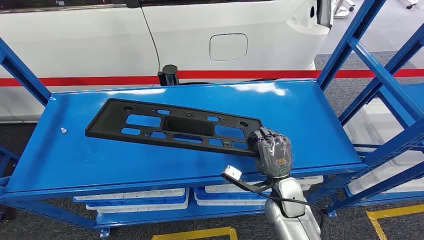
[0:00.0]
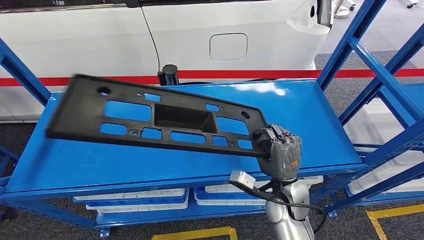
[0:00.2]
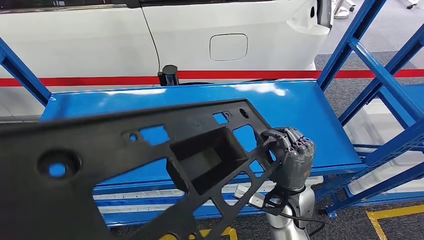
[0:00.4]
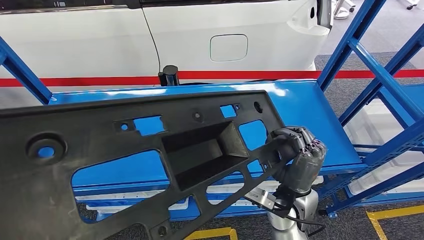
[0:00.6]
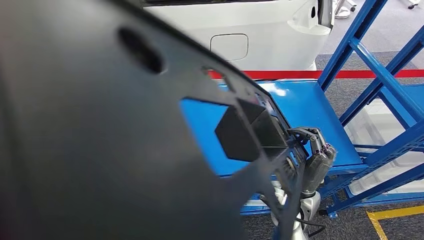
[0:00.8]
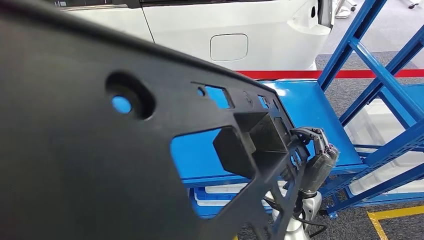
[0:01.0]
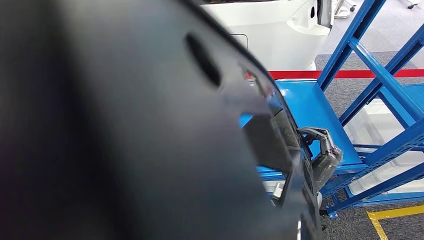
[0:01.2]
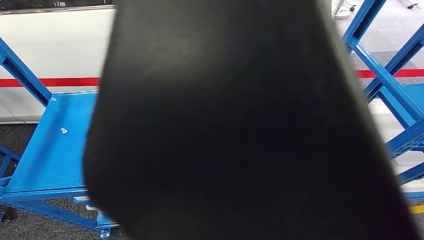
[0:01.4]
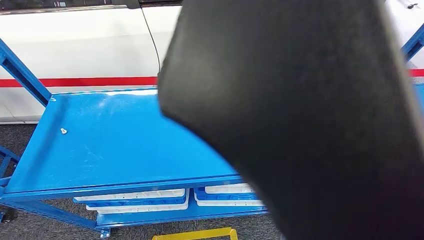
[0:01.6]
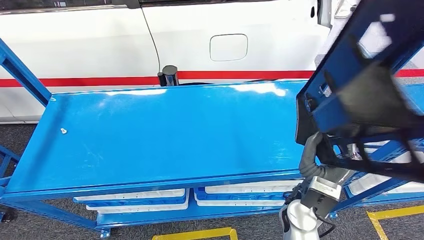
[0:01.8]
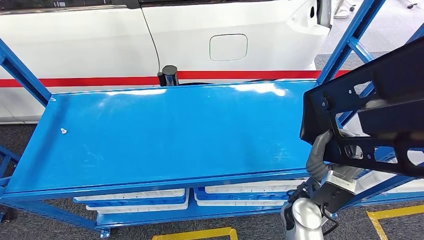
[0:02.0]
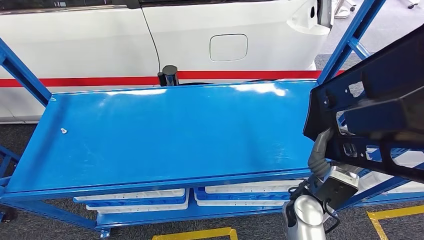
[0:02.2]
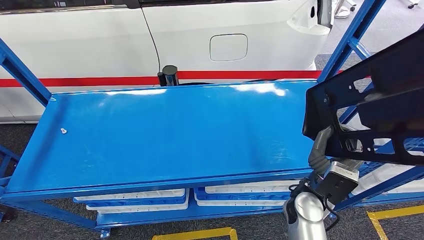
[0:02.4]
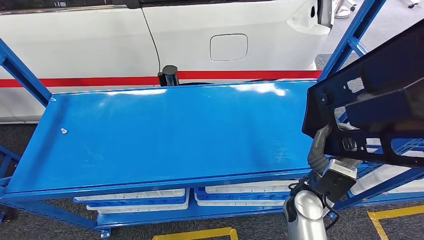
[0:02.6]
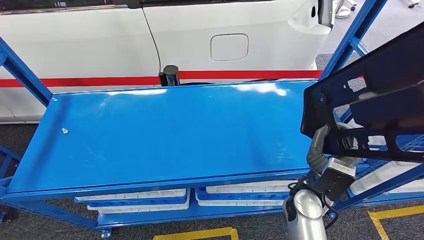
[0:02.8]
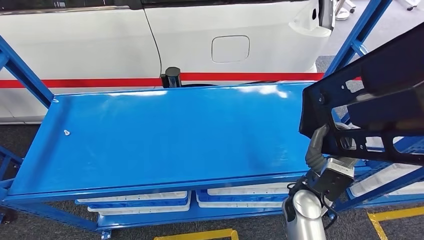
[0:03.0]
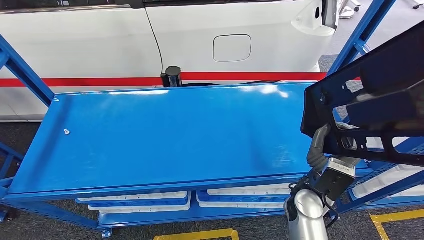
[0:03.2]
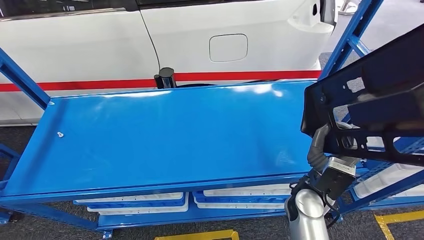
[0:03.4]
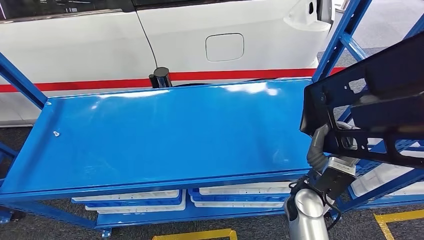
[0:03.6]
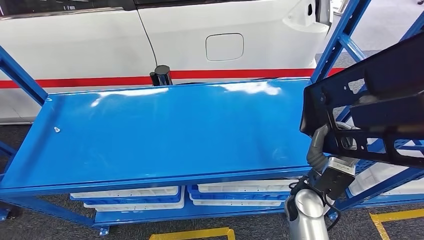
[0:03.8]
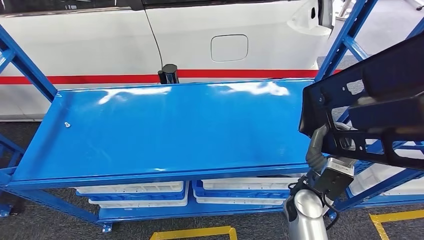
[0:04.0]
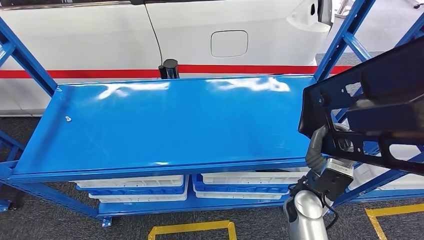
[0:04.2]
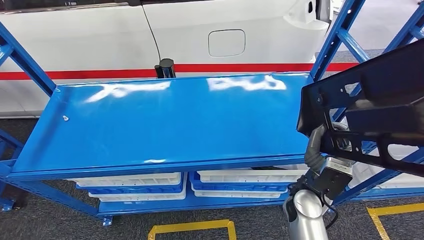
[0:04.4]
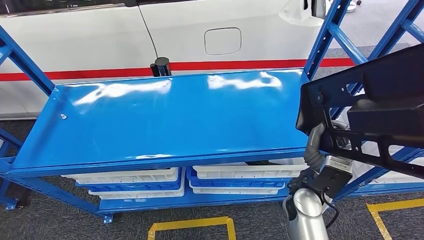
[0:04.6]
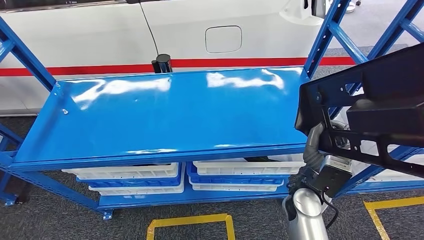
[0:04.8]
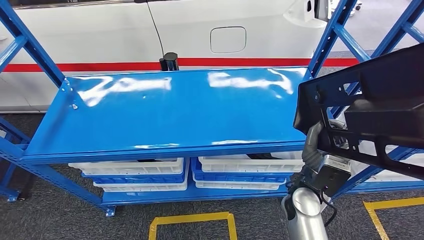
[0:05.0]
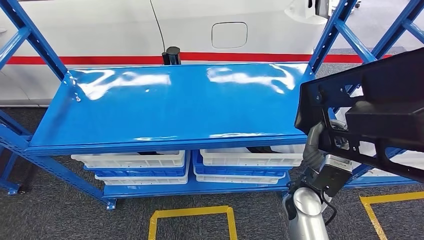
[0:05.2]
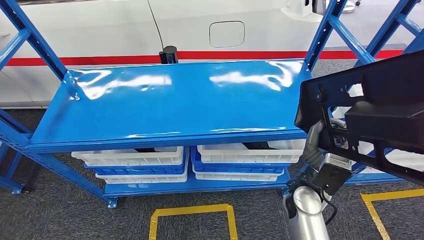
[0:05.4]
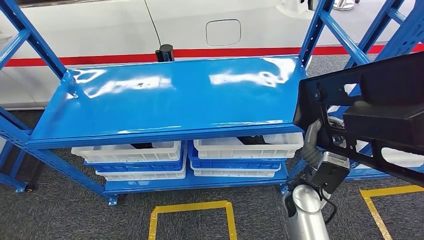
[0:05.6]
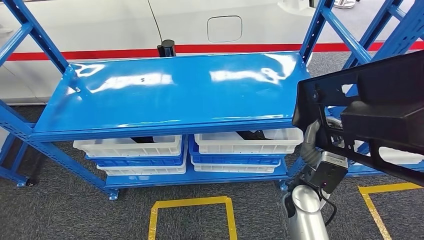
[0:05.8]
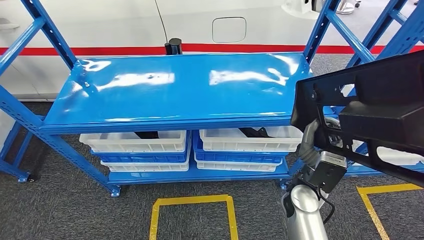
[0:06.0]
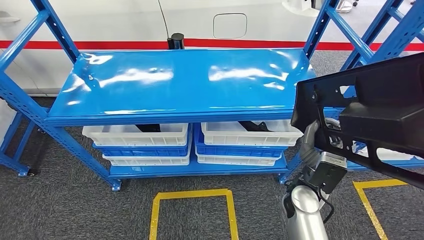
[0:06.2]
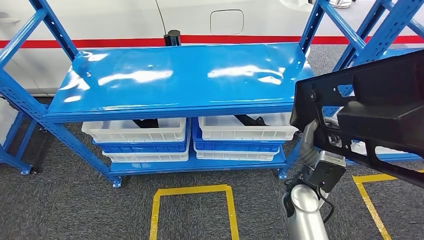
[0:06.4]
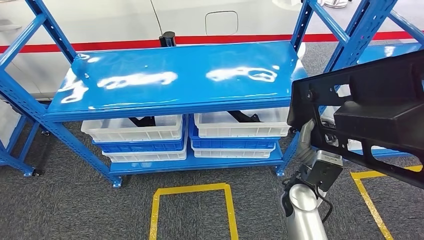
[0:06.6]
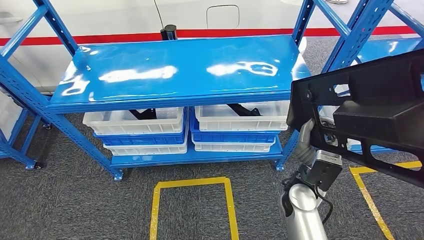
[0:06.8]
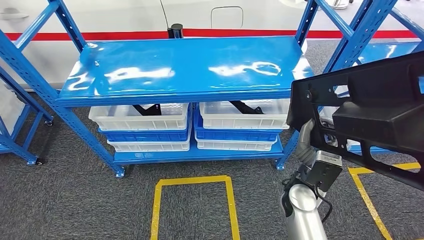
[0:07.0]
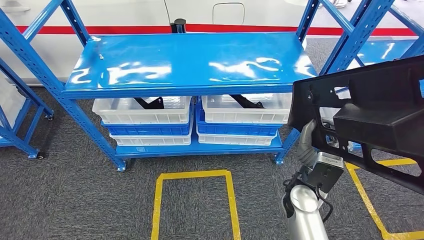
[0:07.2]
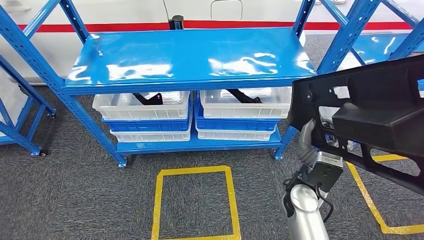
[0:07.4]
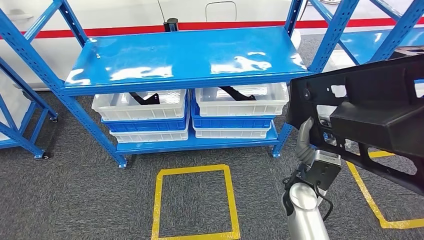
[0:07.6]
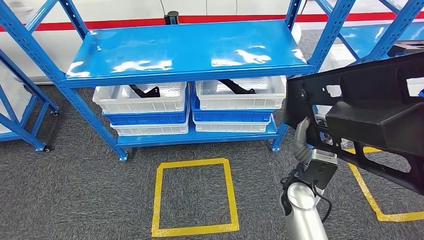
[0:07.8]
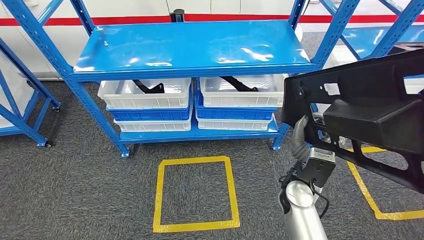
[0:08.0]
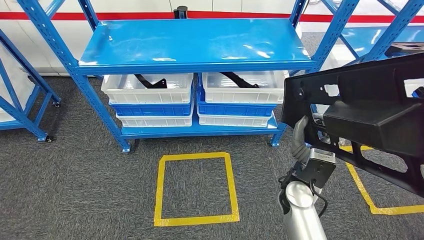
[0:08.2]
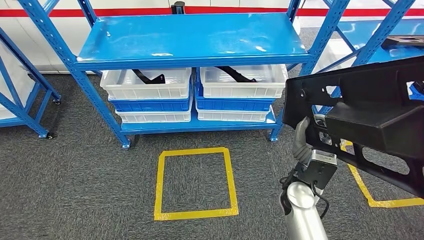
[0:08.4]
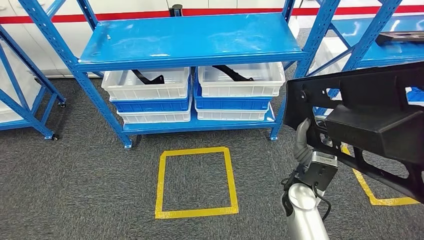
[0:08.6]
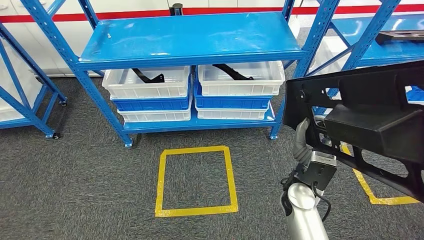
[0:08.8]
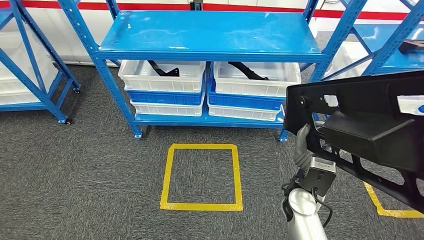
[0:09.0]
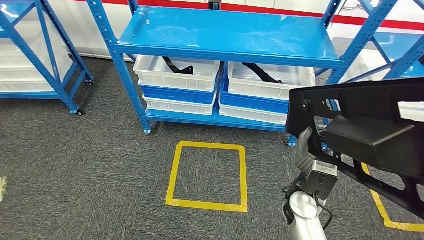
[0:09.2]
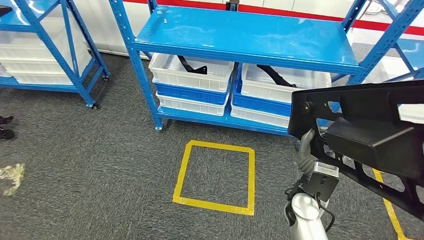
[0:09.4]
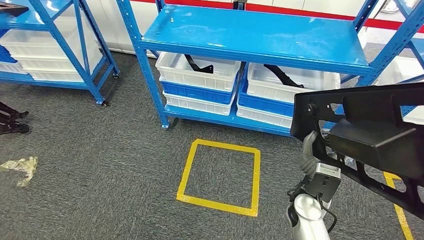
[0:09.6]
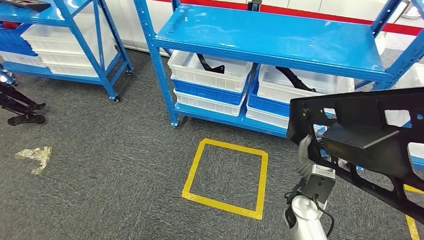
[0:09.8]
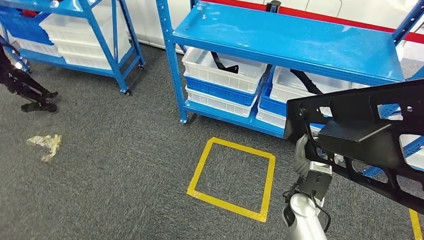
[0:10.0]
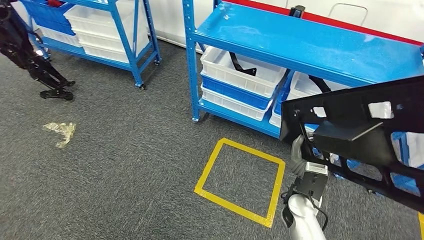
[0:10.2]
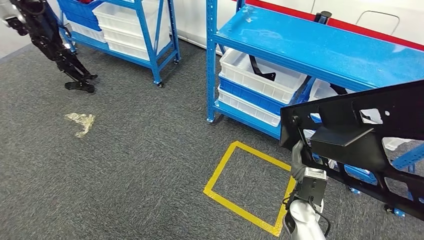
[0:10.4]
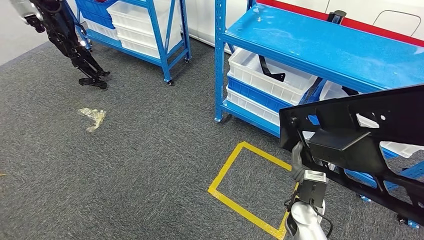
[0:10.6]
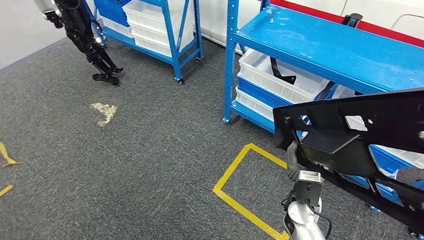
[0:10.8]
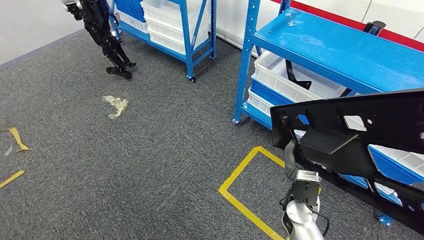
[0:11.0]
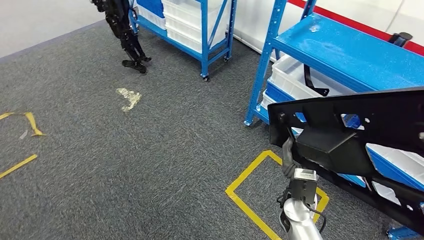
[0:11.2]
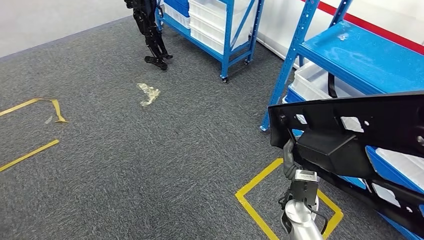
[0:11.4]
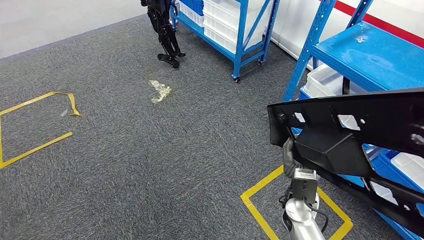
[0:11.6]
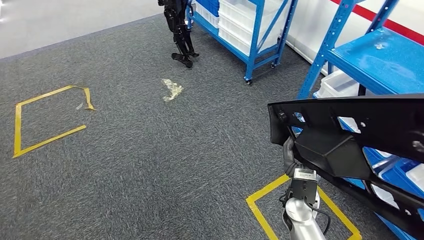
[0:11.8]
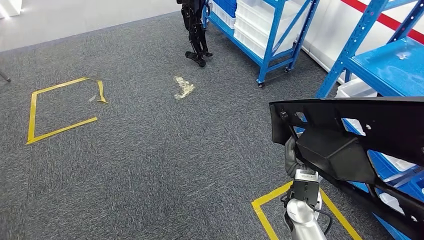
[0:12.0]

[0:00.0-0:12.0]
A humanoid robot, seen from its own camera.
Step, 0:00.0 to 0:06.0: Pick up the large material from the shelf.

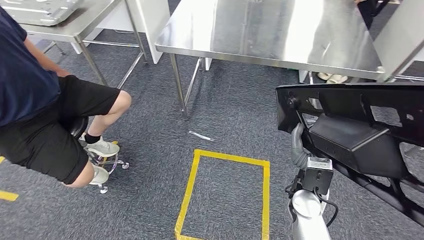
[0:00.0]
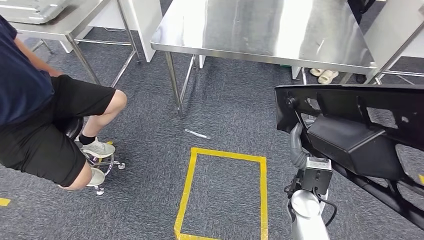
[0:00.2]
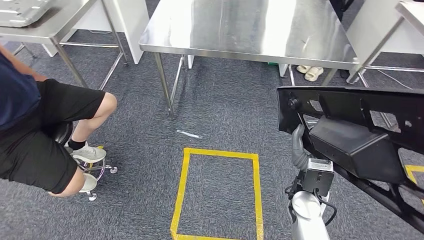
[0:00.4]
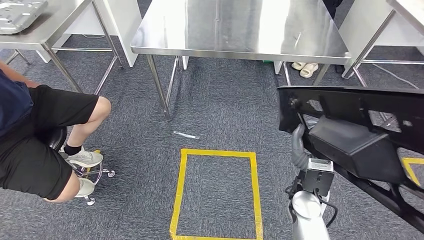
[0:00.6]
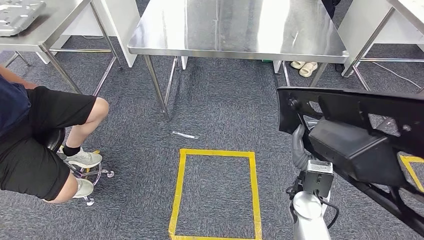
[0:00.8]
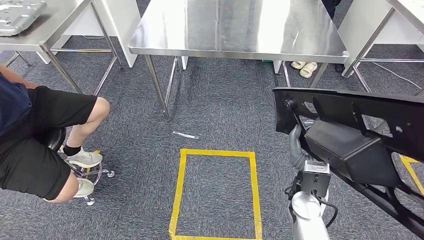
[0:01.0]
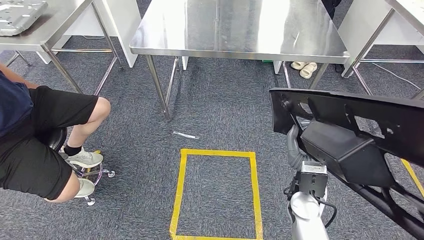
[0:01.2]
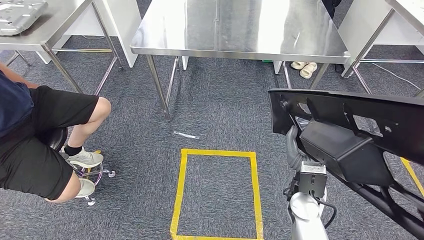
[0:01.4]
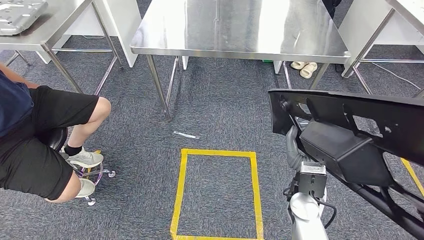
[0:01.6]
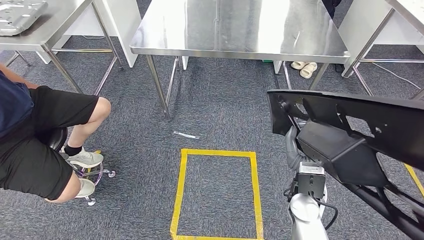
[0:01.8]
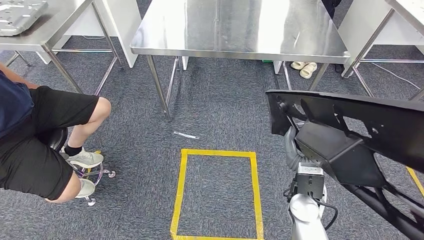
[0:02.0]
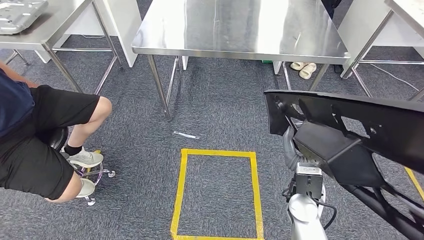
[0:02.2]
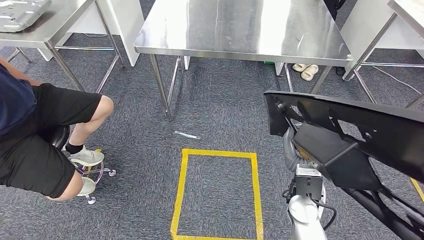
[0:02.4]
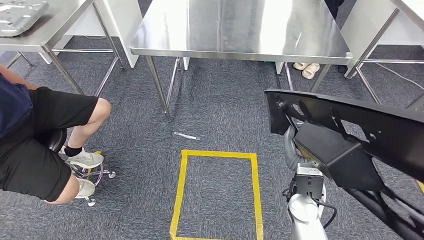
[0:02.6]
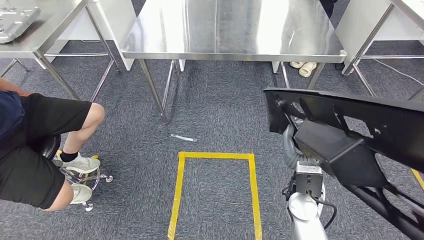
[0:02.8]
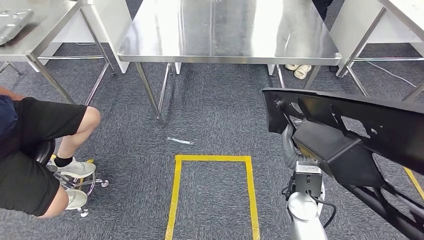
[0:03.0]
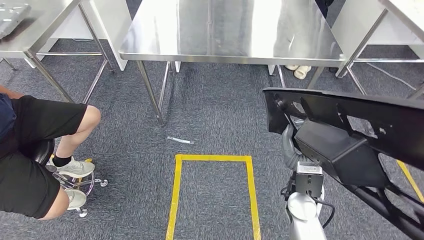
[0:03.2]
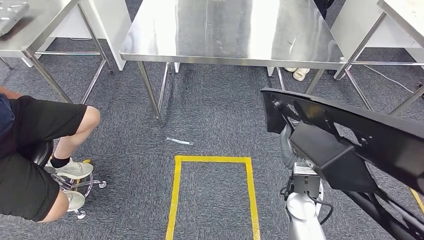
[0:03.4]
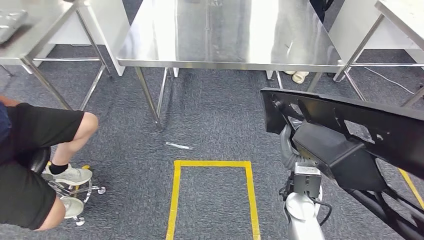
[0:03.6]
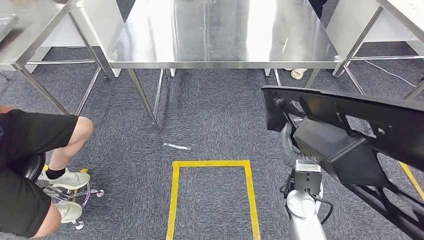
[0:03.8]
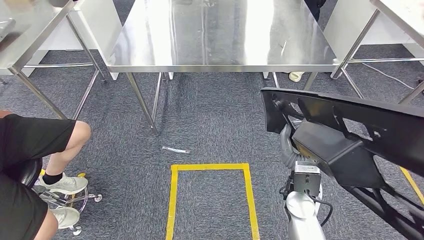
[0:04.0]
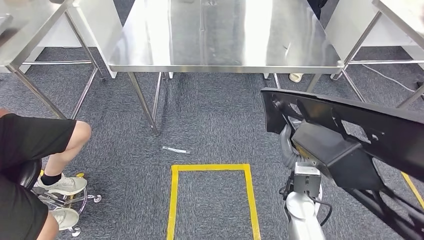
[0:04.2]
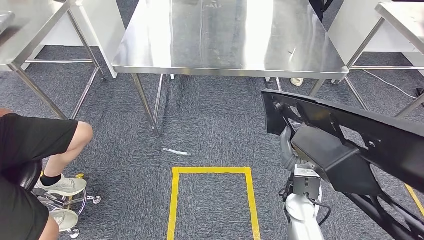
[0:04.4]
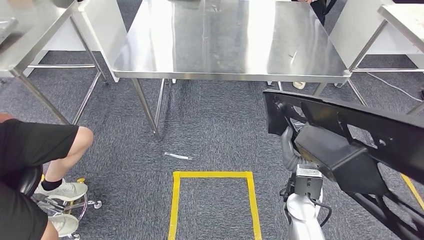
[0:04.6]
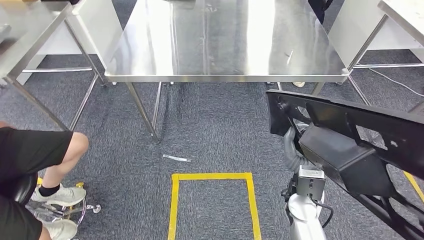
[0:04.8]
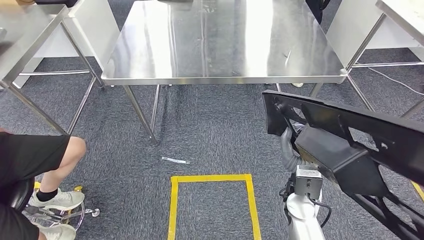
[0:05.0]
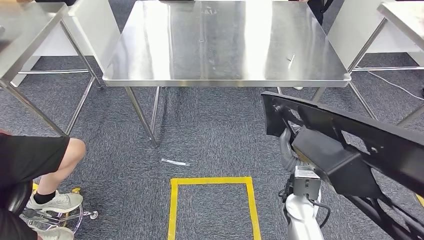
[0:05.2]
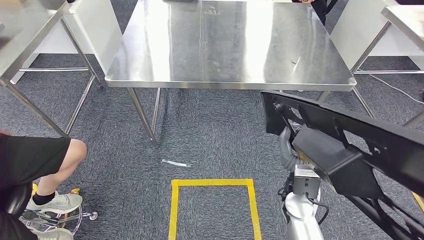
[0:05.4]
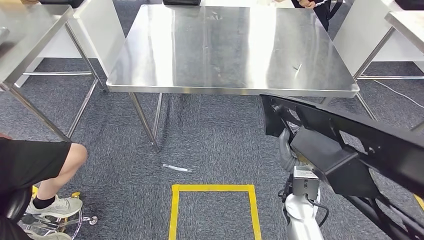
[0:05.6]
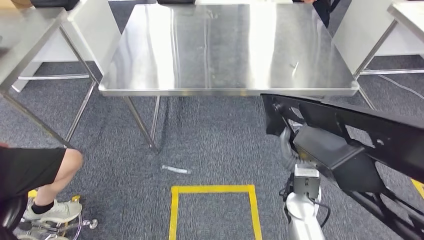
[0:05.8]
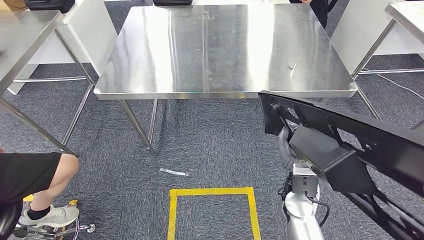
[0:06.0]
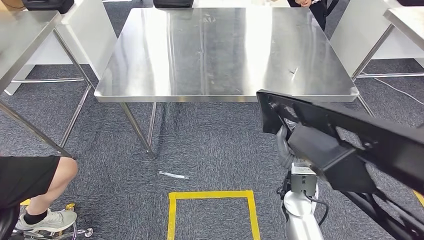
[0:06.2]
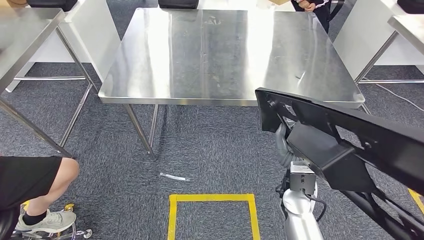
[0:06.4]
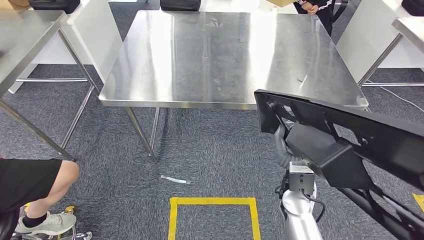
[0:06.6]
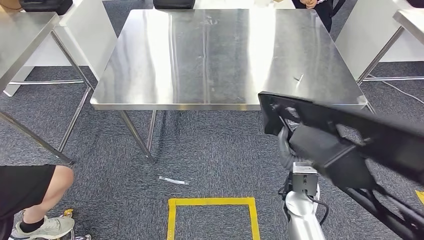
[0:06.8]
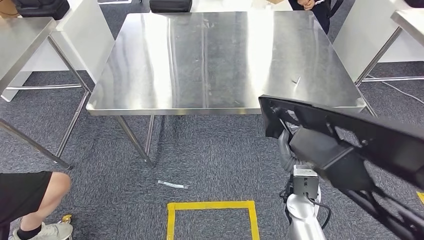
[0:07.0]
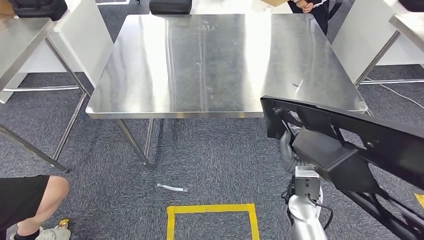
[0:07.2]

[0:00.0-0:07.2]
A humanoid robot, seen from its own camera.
Step, 0:00.0 to 0:03.4: Move the large material to the front of the workbench.
